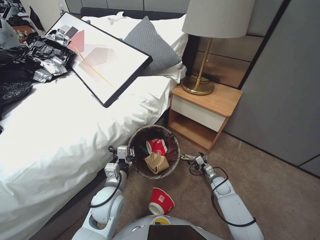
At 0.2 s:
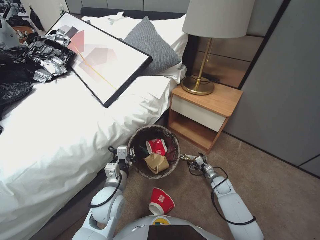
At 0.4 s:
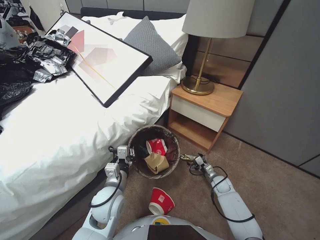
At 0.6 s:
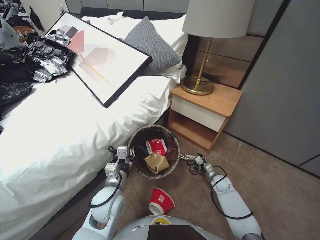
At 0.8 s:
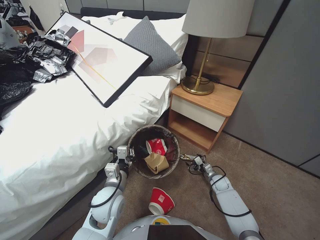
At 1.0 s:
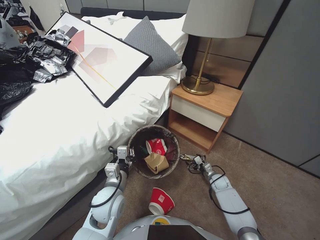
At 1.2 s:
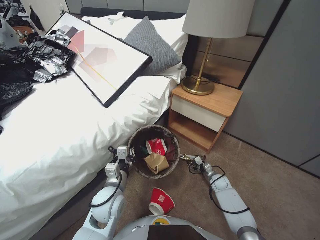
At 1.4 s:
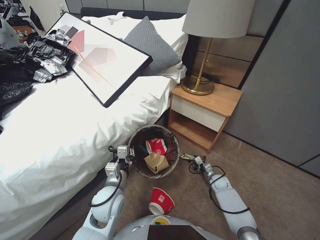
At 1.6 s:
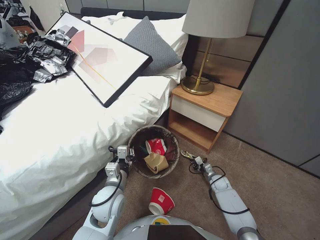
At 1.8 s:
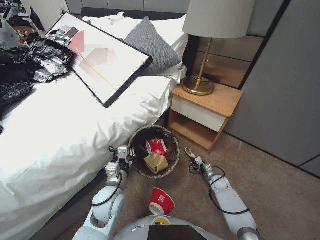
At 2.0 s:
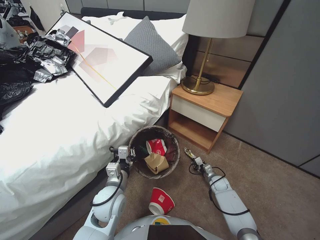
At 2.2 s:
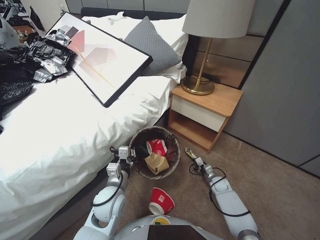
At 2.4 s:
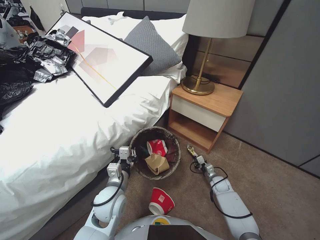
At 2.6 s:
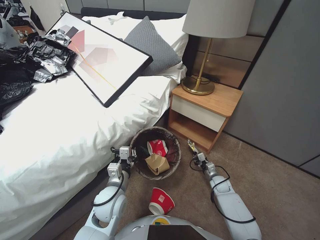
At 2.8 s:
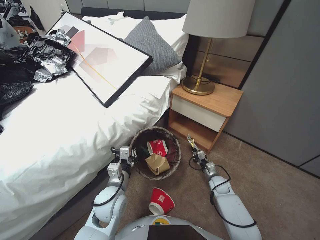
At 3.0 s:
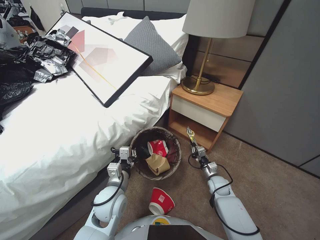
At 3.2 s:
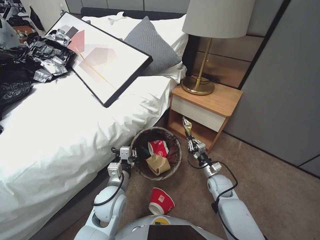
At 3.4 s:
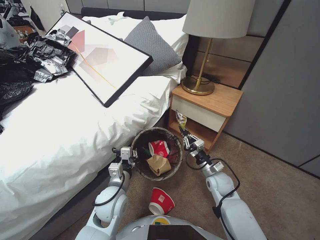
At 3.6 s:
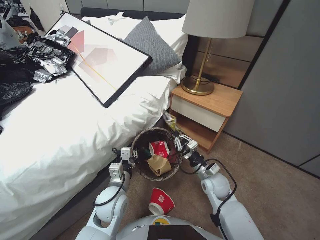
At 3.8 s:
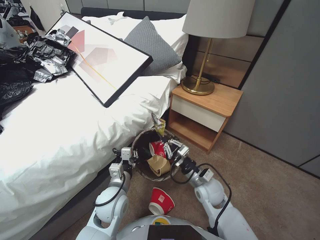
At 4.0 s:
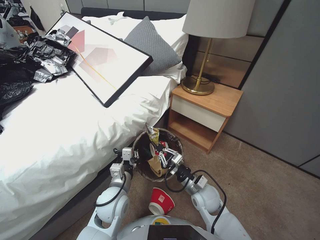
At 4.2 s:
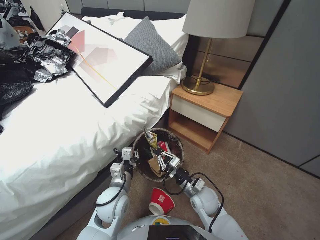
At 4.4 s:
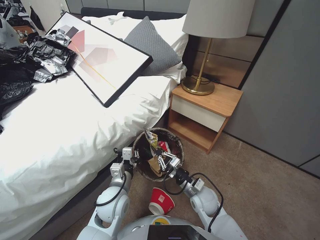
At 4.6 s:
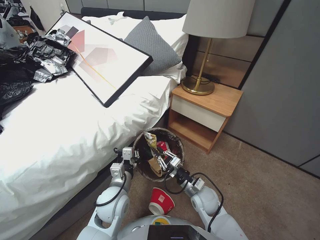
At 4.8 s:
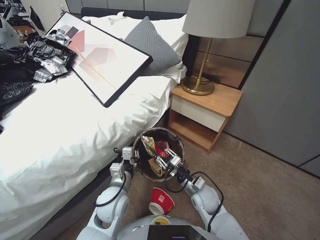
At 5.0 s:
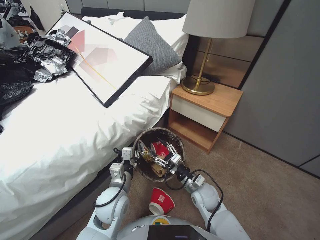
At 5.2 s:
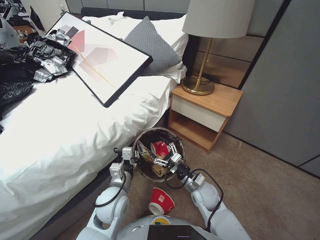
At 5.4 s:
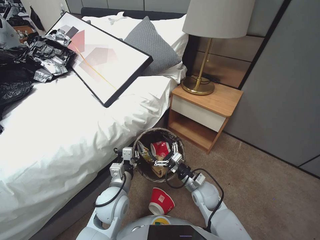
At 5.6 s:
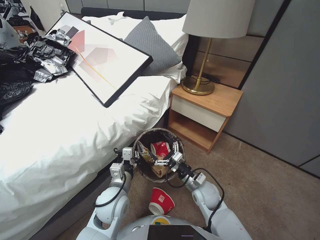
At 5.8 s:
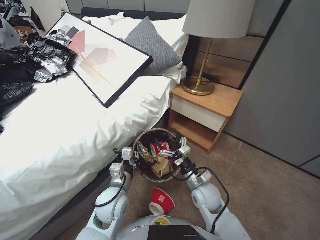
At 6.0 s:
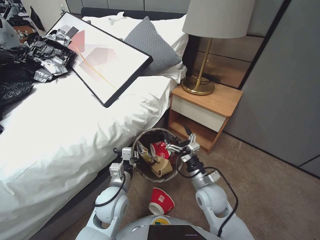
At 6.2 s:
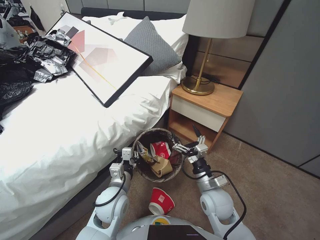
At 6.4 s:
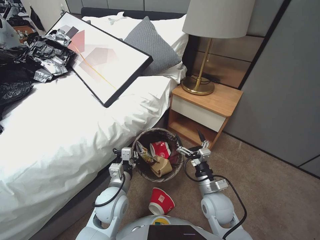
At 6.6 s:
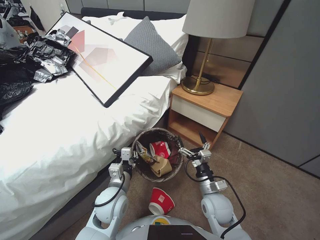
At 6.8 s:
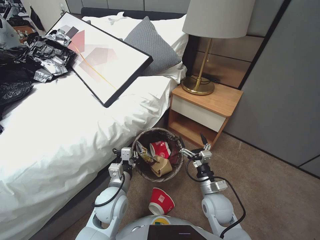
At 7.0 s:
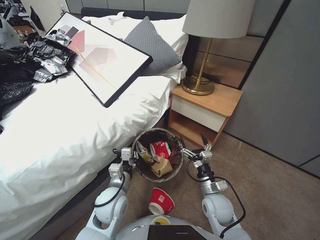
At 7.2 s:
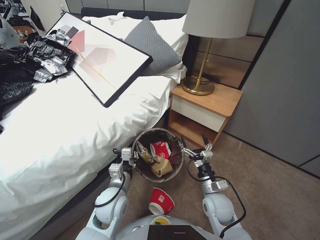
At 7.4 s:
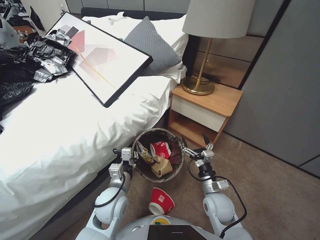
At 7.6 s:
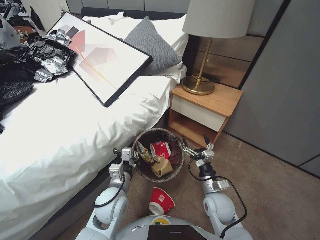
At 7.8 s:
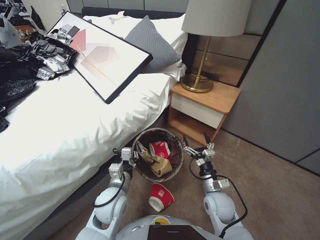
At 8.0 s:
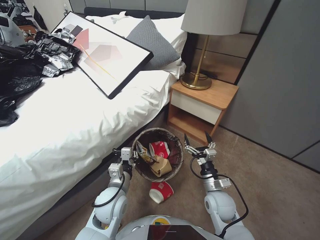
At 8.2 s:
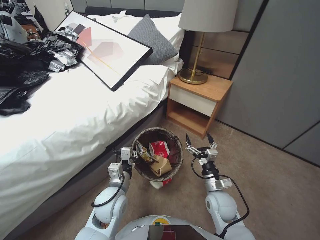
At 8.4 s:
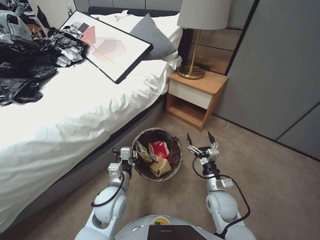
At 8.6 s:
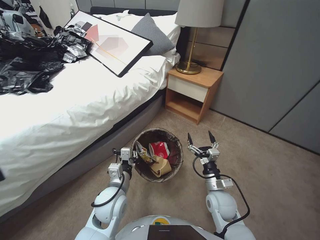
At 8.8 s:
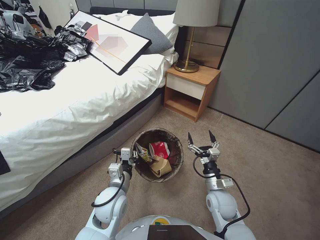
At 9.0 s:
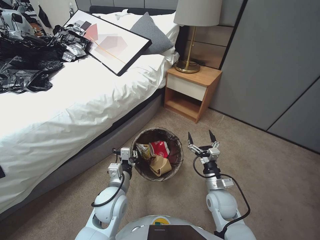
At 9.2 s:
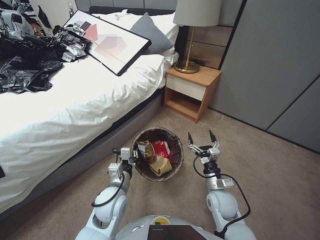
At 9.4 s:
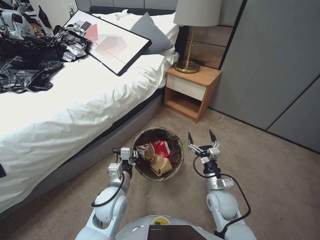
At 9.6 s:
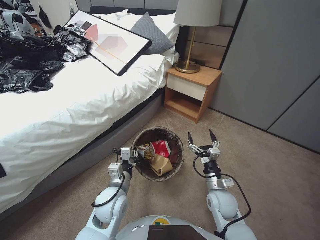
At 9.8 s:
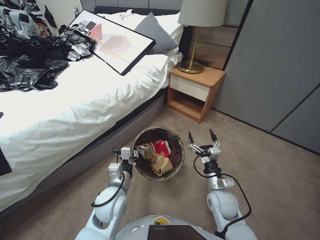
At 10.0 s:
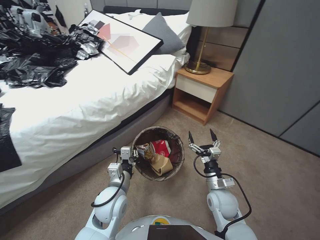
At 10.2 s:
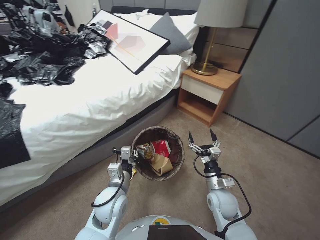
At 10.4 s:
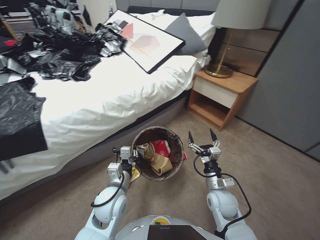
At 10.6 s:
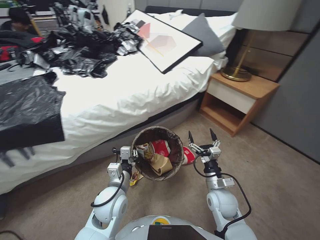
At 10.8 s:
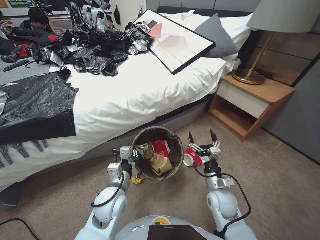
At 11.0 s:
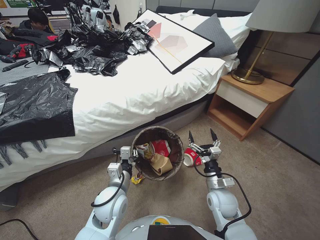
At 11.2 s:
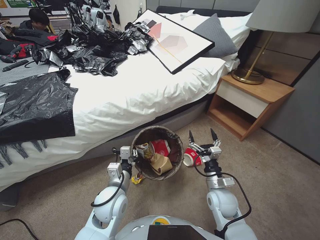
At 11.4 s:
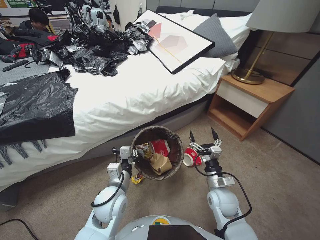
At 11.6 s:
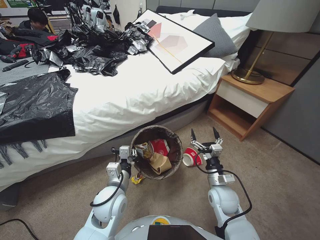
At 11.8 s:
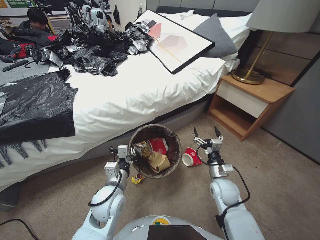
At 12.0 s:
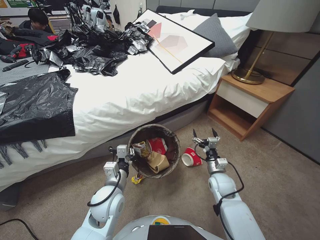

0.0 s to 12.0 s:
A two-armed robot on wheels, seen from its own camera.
Task of the whole recording: Pick up the trash bin, then pick up the garbage from the floor and place it into the trash bin.
0.0 to 1.6 s: The right gripper ends up roughly 5 cm from where it was, and closes.
1.6 to 3.0 s: The right gripper moves upward, some 5 cm, and closes up.
3.0 to 4.4 s: The right gripper goes roughly 20 cm to the left, upward and backward.
4.4 to 6.0 s: The right gripper opens.
6.0 to 7.6 s: The right gripper ends up roughly 5 cm from where it was.
10.4 to 12.0 s: The right gripper moves forward, approximately 5 cm.

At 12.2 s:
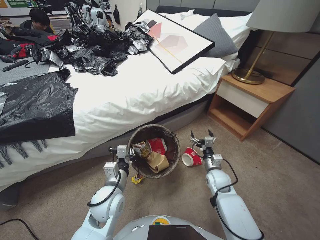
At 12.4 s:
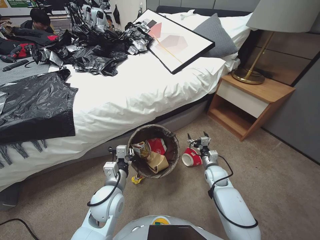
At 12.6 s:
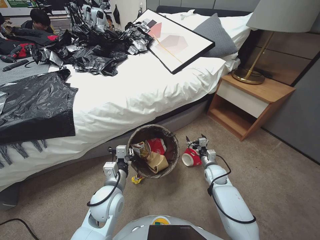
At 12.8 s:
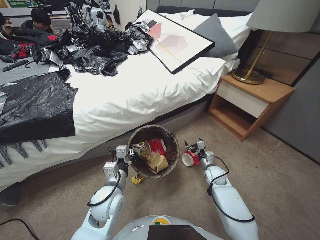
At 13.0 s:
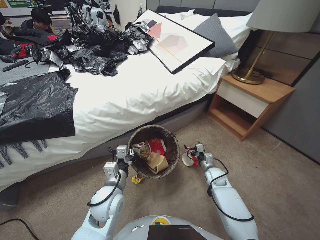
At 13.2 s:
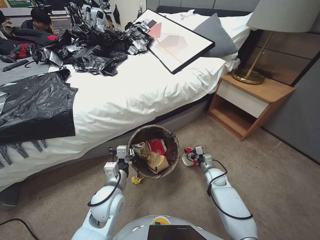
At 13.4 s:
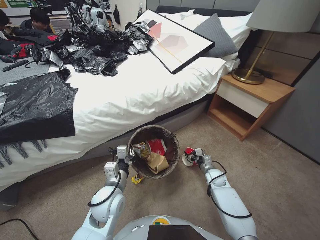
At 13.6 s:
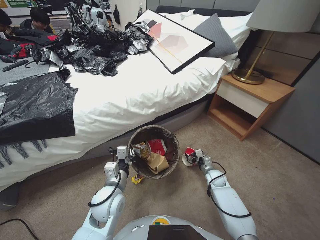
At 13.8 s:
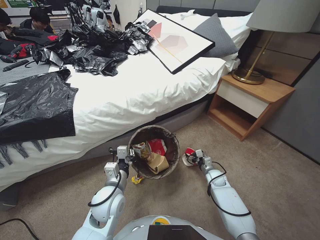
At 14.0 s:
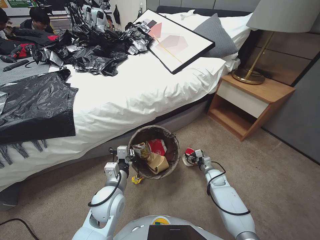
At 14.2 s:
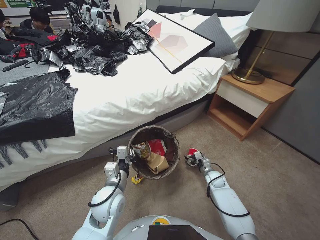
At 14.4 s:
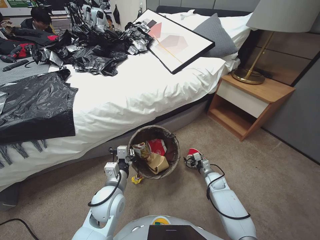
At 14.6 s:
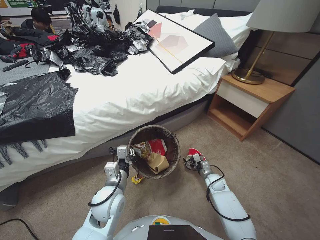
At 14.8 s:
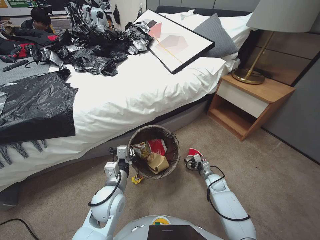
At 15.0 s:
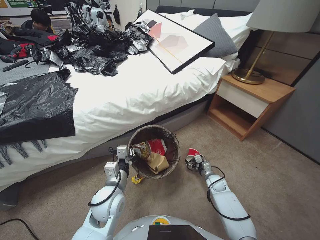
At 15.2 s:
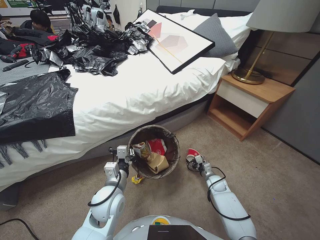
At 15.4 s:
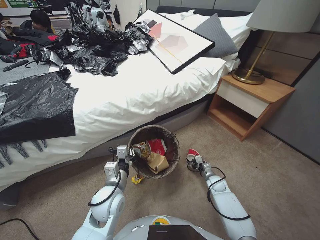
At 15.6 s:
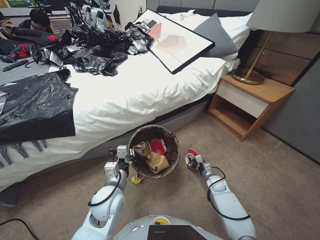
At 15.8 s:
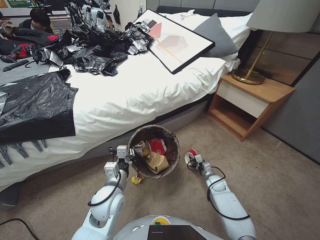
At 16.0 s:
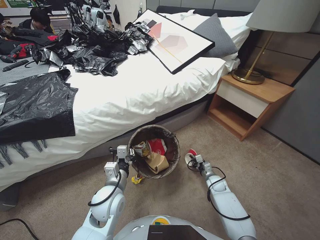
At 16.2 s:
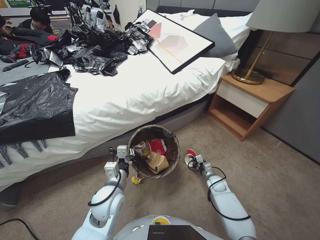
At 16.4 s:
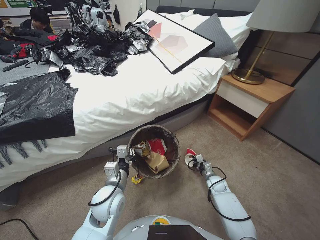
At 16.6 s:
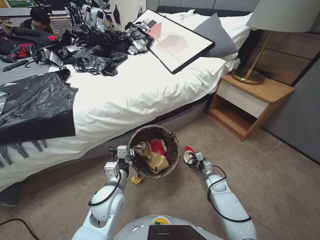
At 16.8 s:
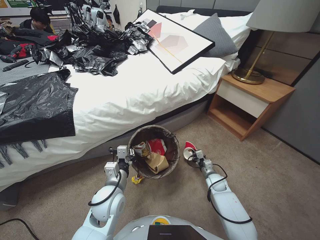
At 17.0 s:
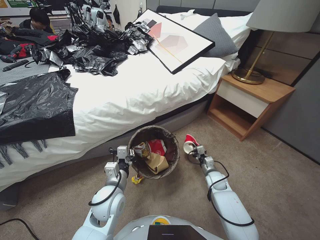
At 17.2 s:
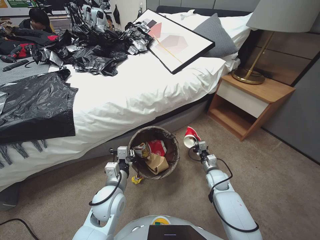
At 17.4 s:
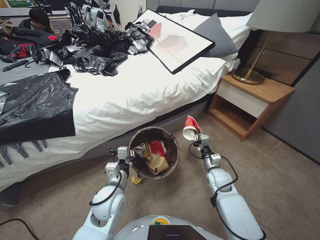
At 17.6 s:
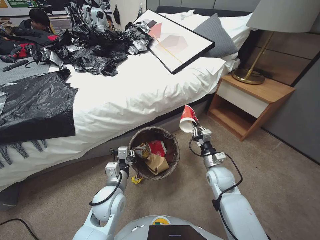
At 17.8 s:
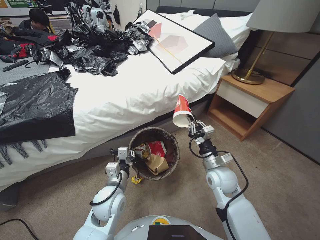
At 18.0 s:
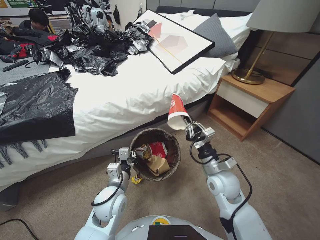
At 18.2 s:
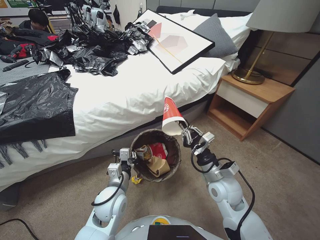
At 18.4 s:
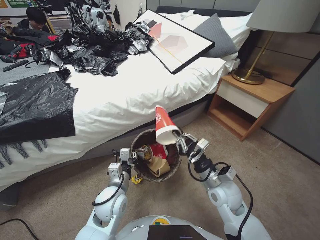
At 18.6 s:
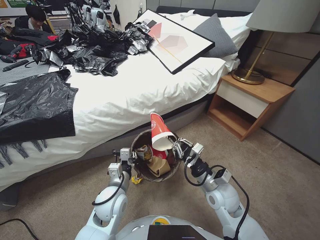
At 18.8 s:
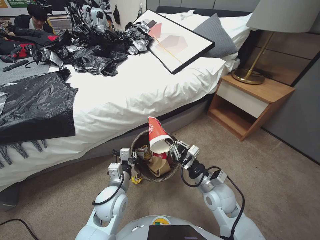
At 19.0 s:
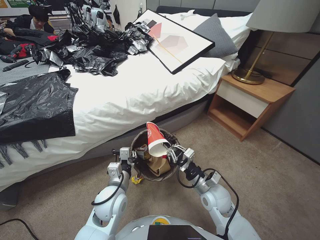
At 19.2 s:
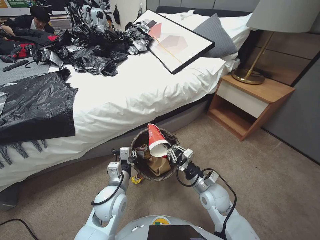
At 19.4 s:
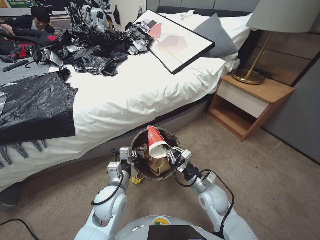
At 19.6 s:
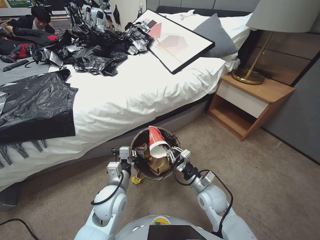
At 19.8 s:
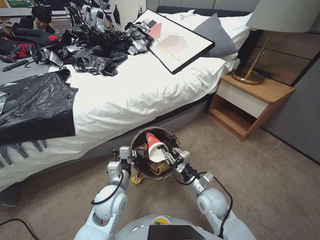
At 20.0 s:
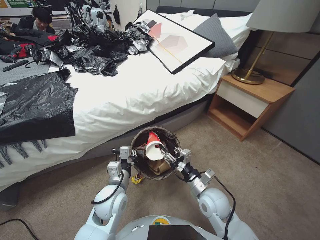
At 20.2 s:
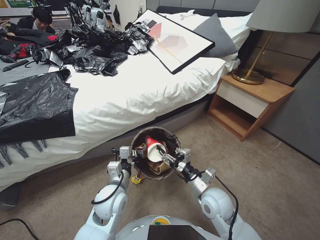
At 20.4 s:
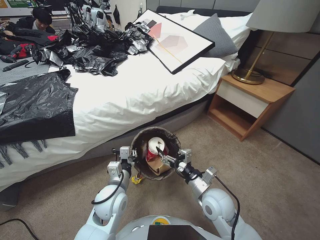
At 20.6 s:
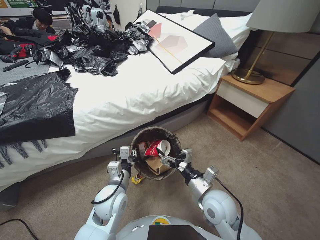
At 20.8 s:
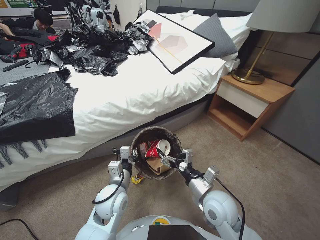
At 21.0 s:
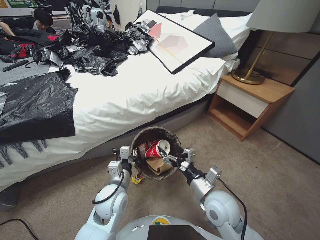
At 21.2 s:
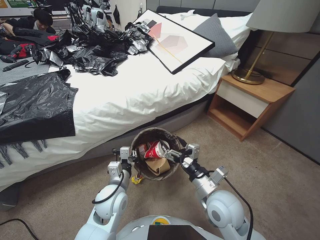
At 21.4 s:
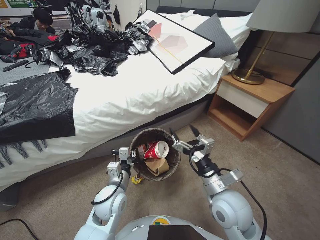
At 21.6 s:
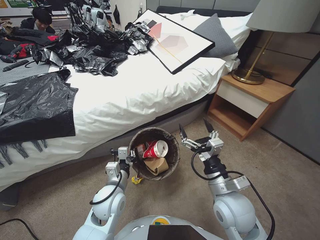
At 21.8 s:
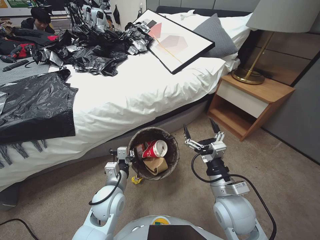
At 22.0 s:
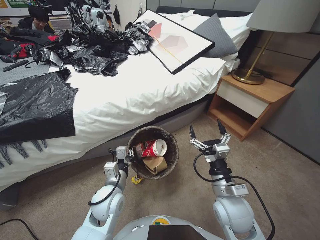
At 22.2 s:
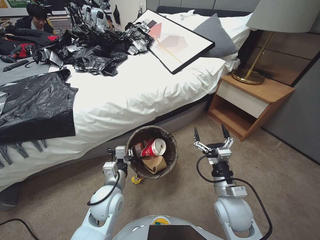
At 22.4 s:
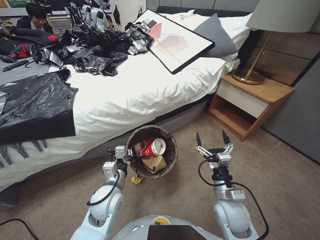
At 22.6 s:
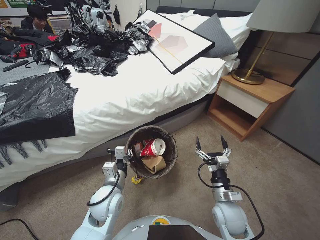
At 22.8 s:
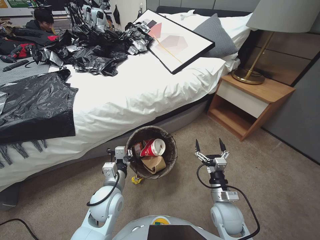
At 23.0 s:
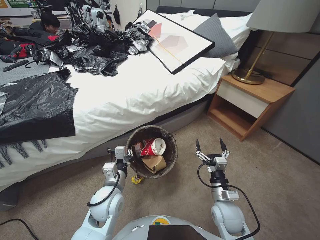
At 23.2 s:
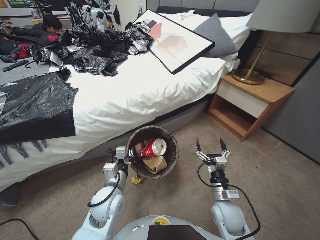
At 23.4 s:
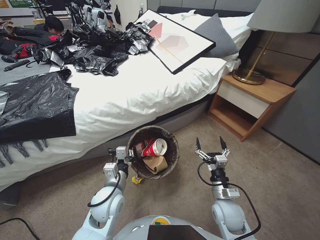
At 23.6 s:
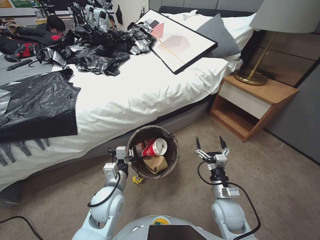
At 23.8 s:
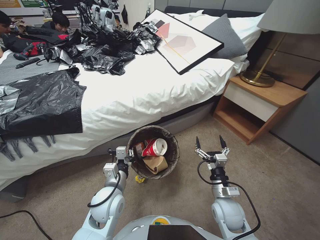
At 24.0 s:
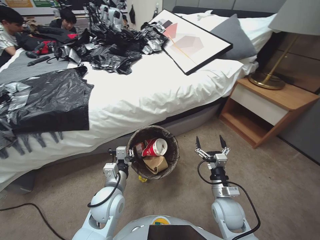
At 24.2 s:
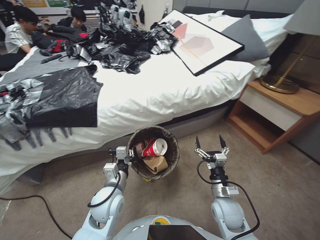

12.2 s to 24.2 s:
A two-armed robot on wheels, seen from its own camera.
Task of the whole recording: Pick up the trash bin, then pick up the garbage from the floor and place it into the trash bin.
12.2 to 13.8 s: The right gripper moves downward, about 10 cm.
13.8 to 15.2 s: The grippers stay close to where they were, moving slightly.
15.2 to 16.6 s: The right gripper closes.
16.6 to 18.2 s: The right gripper heads upward, covering about 25 cm.
18.2 to 19.8 s: The right gripper heads downward, covering roughly 10 cm.
19.8 to 21.2 s: The right gripper shifts roughly 10 cm upward, and opens.
21.2 to 22.6 s: The right gripper heads downward and to the right, covering some 10 cm.
